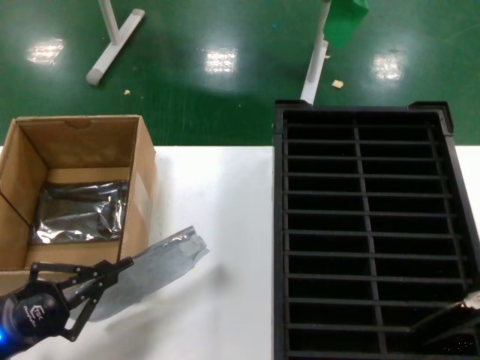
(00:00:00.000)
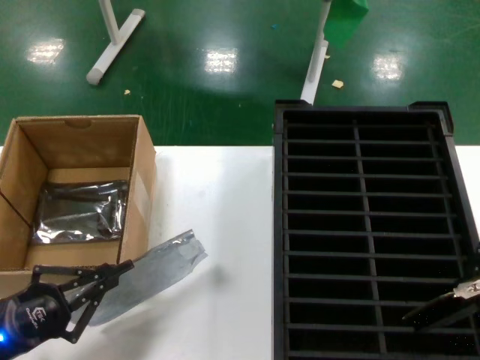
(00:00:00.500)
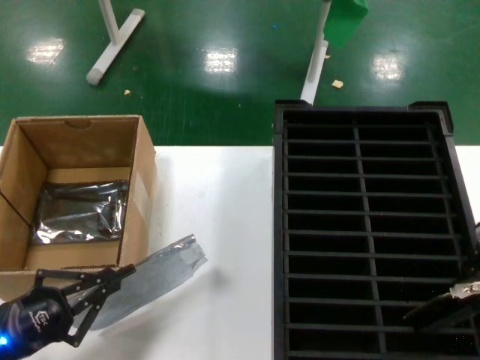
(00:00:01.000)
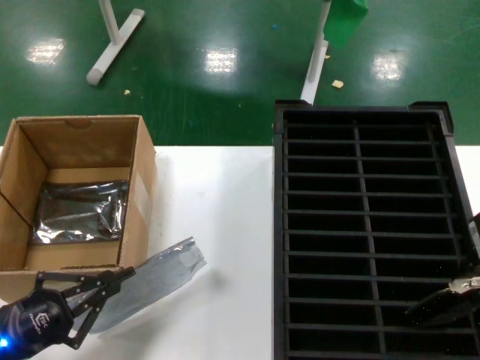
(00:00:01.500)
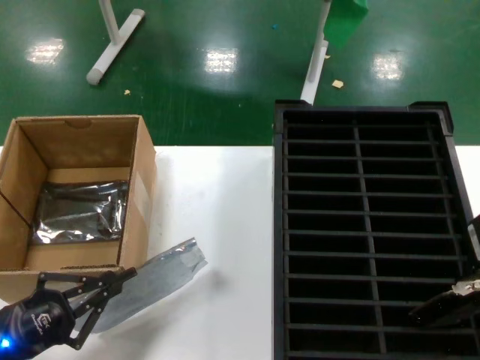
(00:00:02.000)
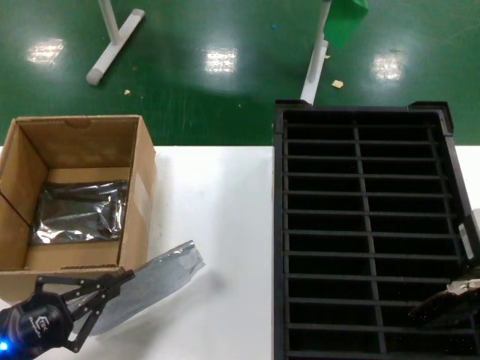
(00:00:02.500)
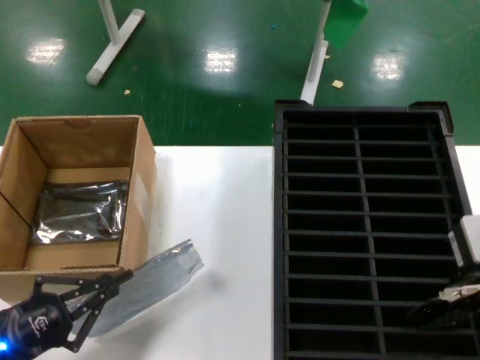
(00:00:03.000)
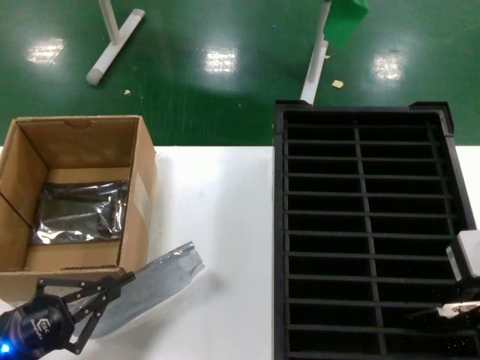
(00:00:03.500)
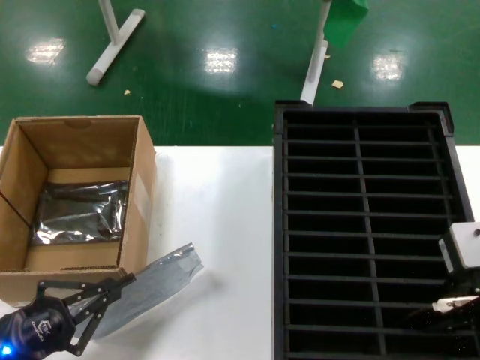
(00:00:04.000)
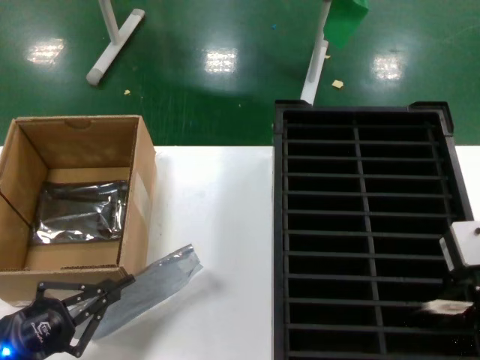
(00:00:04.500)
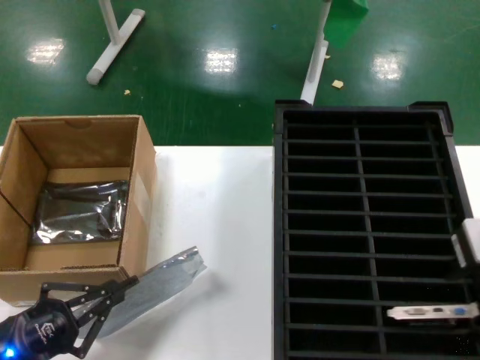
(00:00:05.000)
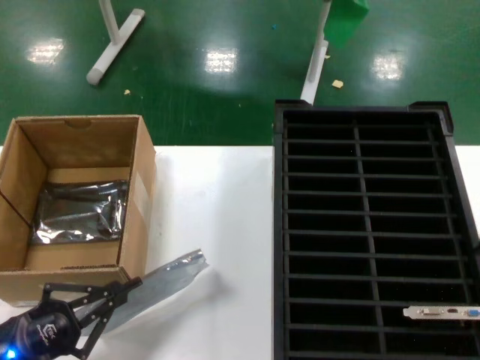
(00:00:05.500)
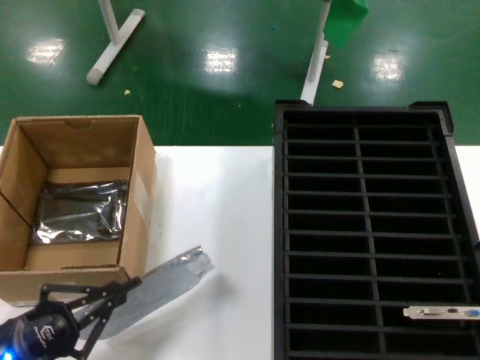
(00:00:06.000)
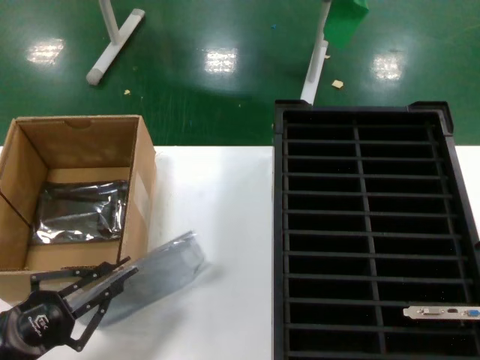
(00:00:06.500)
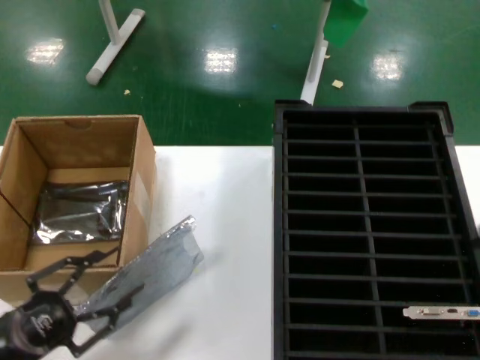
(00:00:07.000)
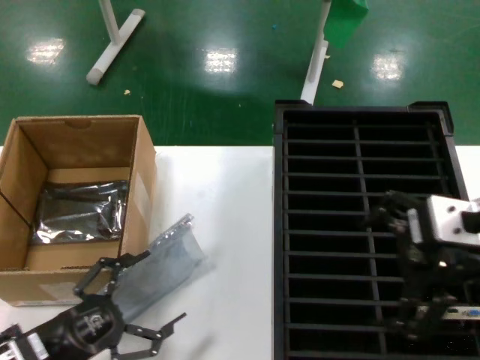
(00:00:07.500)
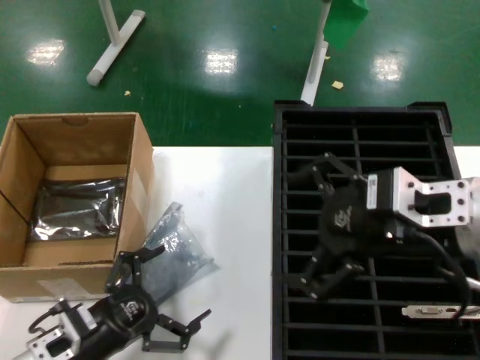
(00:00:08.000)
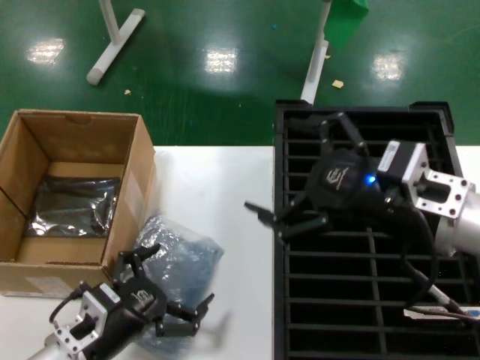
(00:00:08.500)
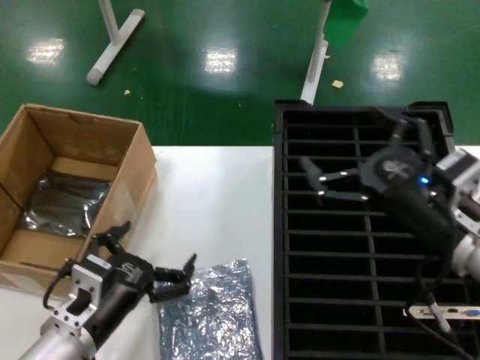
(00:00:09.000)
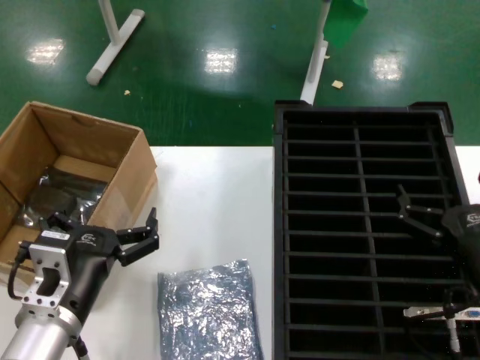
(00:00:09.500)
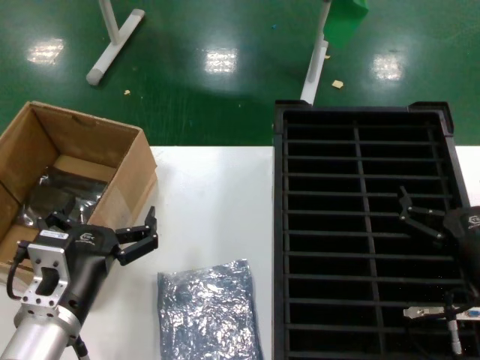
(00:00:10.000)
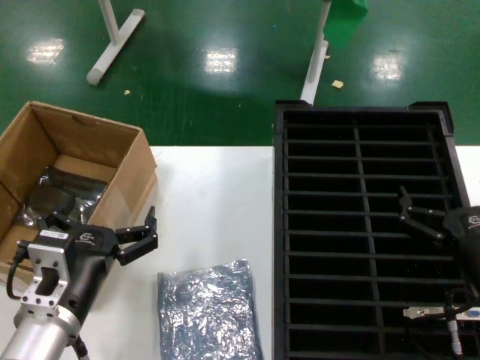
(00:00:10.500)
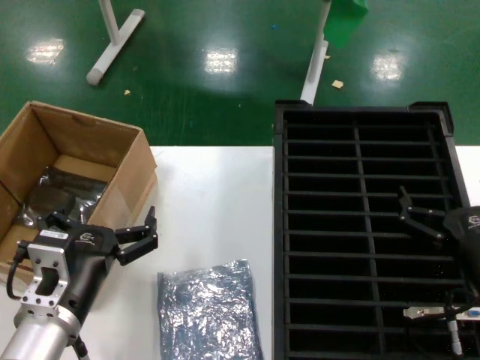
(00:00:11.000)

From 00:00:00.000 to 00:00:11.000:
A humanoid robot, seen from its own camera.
Task of the whole recording: take out graphics card from box remove packaging put into black container.
Step, from 00:00:00.000 to 00:00:04.500: Place the hard disk in the hard disk enclosure.
Step, from 00:00:05.000 to 00:00:06.500: Place the down the bag.
From 00:00:00.000 to 00:00:02.000: The right hand changes place by about 5 cm.
From 00:00:02.000 to 00:00:05.500: There are only small adjustments of the hands.
From 00:00:05.500 to 00:00:07.500: The left hand goes roughly 5 cm to the right.
From 00:00:07.500 to 00:00:09.000: The right hand is displaced downward by roughly 15 cm, while the left hand heads to the right, covering roughly 10 cm.
From 00:00:09.000 to 00:00:11.000: The right hand goes approximately 10 cm downward.
